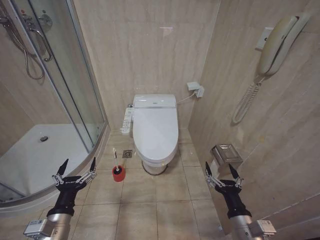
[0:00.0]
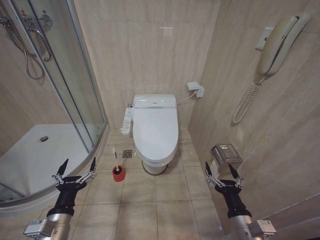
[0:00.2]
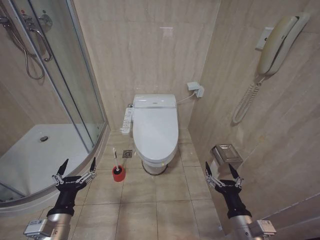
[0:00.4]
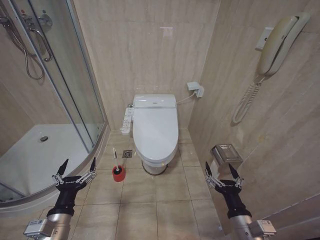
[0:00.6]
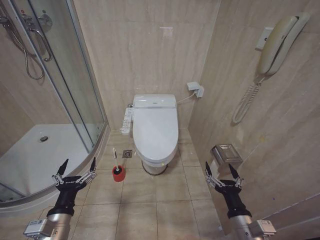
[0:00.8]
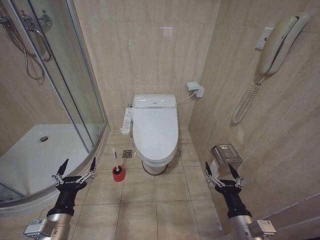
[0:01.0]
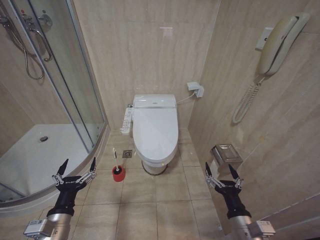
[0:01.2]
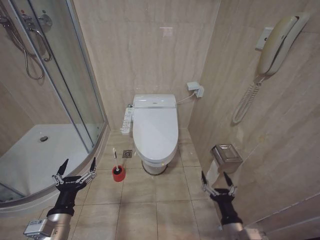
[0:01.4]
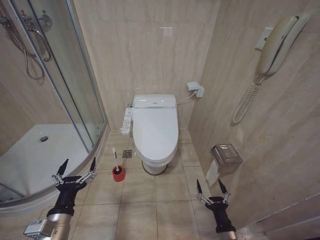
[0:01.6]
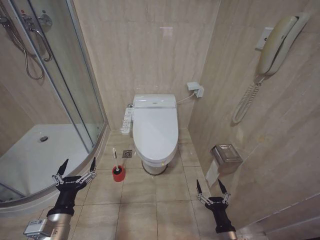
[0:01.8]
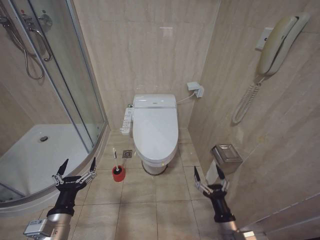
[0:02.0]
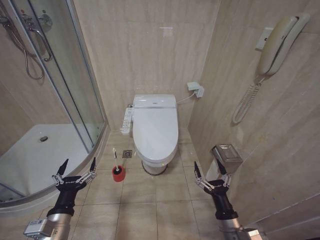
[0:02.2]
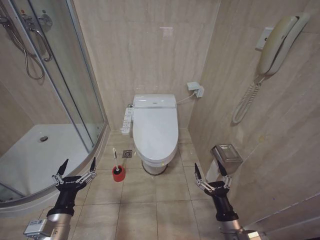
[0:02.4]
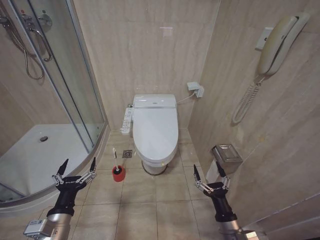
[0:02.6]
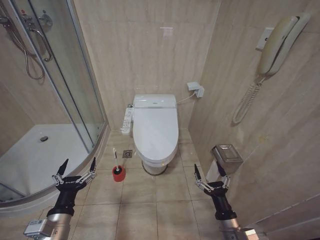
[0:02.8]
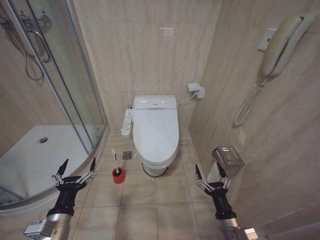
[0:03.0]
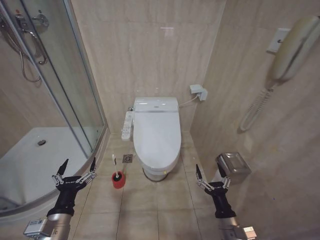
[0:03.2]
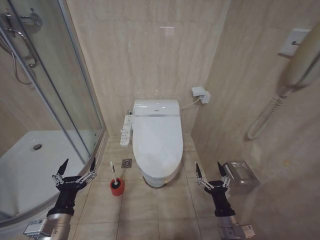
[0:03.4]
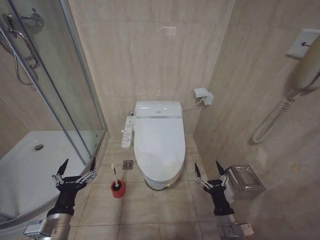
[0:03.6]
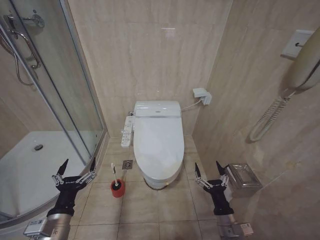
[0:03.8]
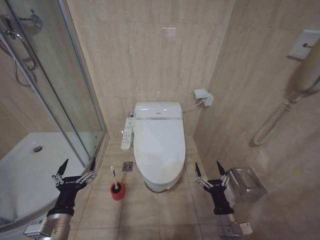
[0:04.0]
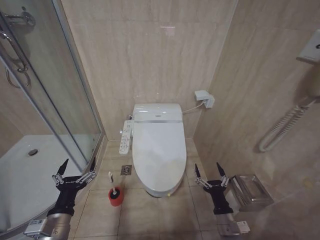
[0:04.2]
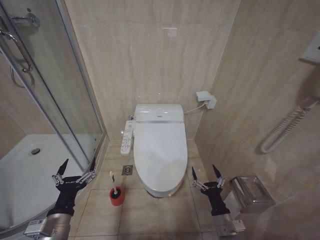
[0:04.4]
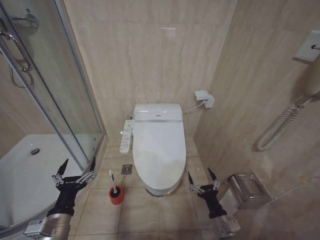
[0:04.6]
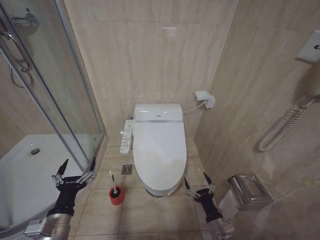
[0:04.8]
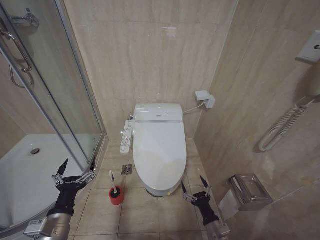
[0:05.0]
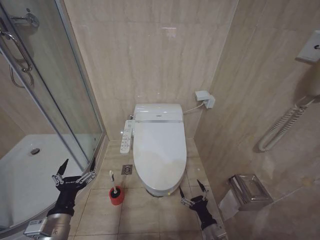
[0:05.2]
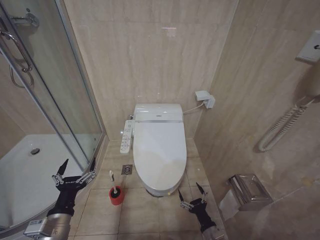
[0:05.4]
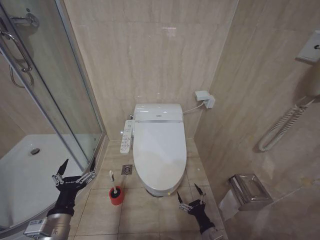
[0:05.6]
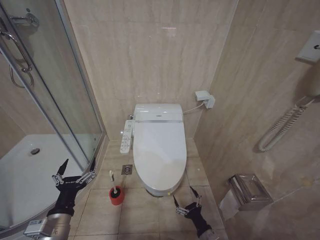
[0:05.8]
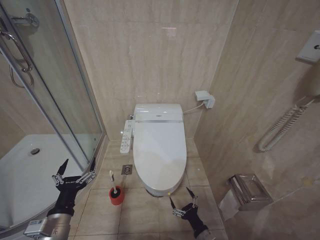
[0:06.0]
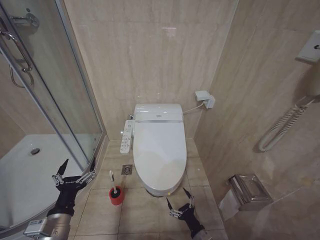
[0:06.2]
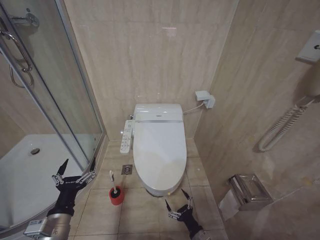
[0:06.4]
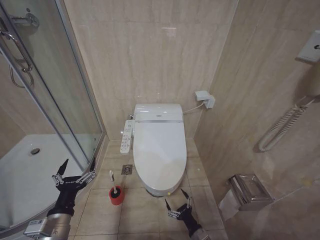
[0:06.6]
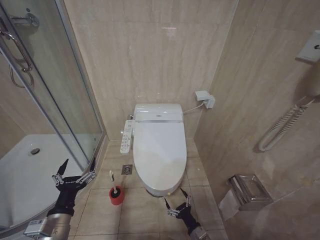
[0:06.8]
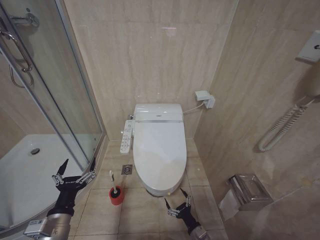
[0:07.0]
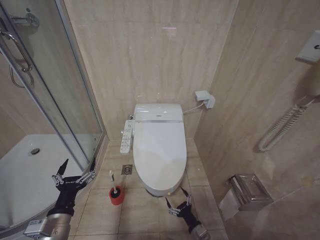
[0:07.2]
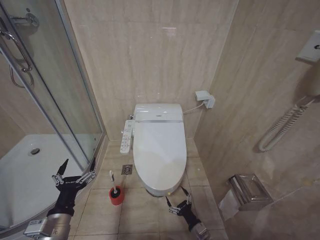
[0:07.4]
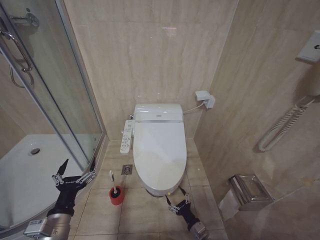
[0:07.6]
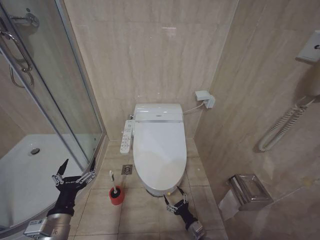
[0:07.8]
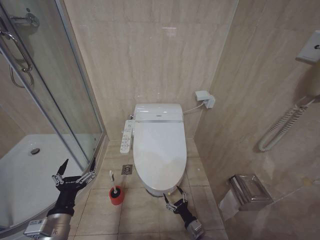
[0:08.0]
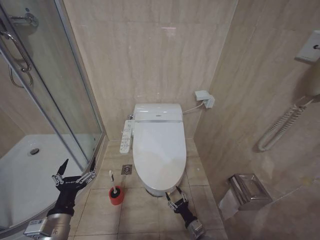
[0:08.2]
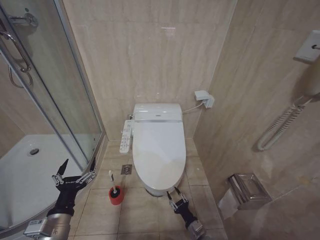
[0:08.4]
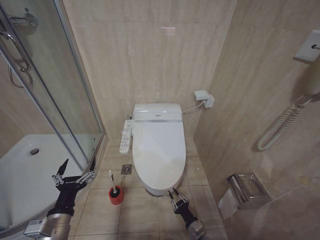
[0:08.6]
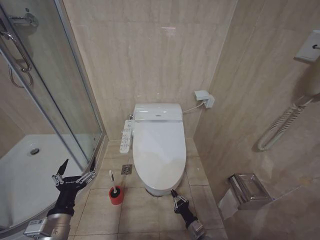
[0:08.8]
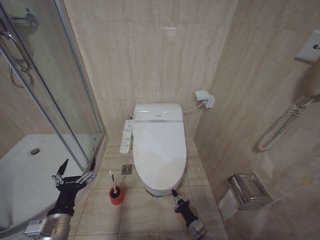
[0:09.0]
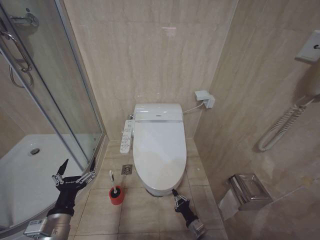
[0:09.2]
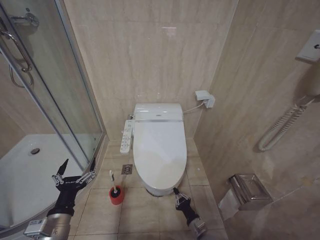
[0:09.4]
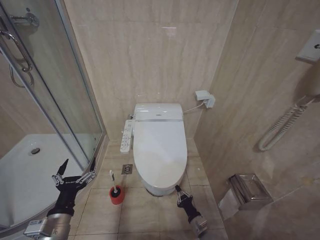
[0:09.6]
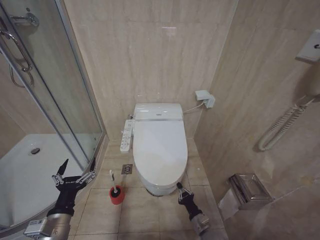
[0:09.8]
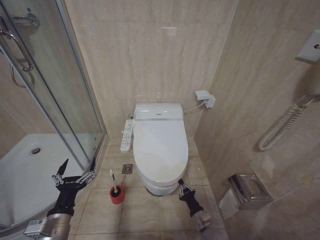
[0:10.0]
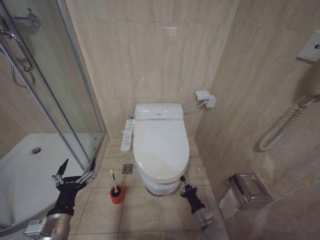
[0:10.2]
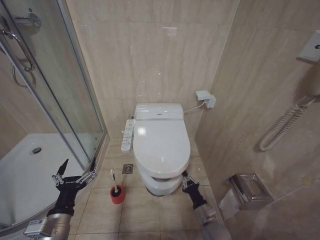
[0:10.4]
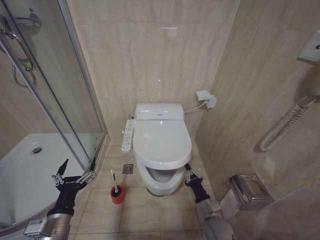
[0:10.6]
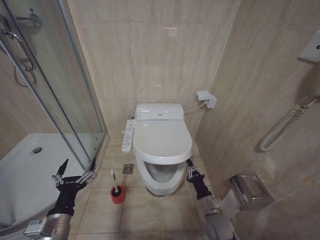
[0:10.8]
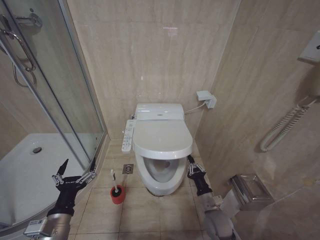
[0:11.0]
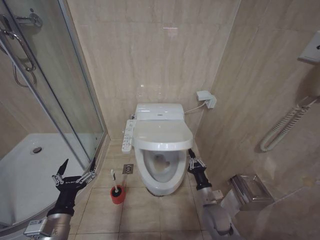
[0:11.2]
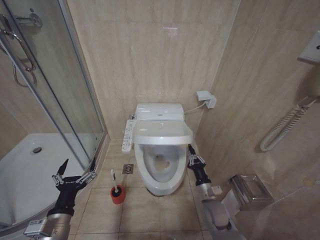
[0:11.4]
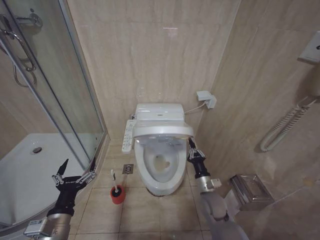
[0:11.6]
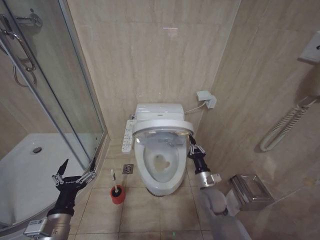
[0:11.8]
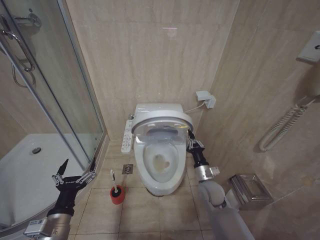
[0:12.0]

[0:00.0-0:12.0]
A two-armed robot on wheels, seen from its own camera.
Task of the whole recording: Open the toilet lid, clean the toilet bowl with a toilet brush, close the toilet lid, and flush.
0:03.0 to 0:04.4: The grippers move only a little.
0:04.4 to 0:06.0: The right gripper goes approximately 10 cm downward.
0:09.0 to 0:10.4: The right gripper is displaced upward by about 10 cm.
0:10.4 to 0:12.0: The right gripper heads upward and forward, covering some 15 cm.

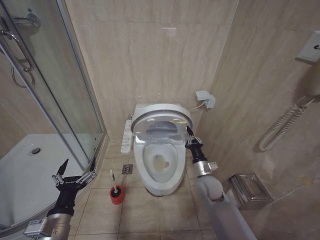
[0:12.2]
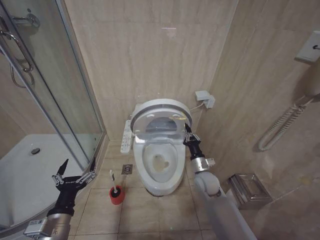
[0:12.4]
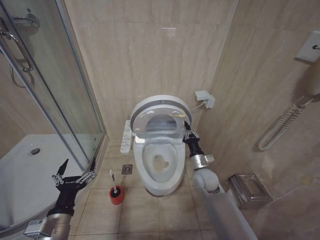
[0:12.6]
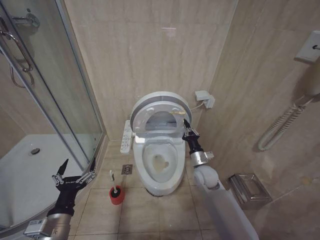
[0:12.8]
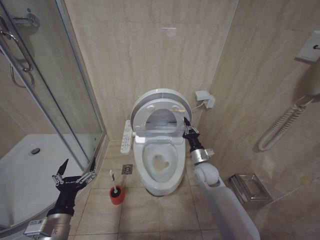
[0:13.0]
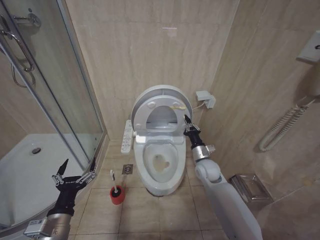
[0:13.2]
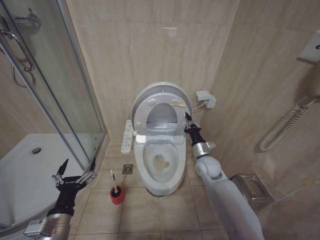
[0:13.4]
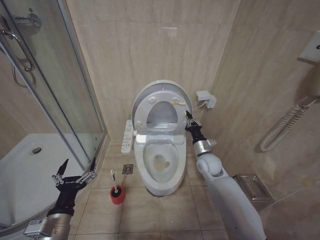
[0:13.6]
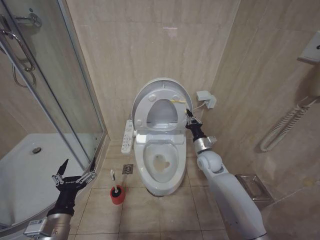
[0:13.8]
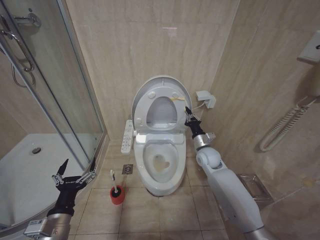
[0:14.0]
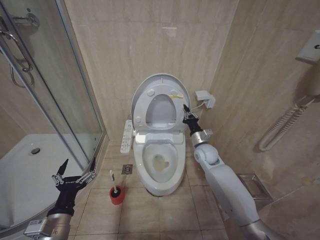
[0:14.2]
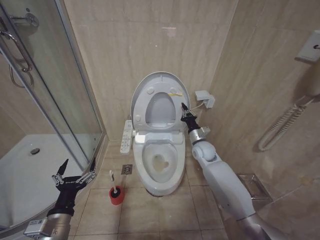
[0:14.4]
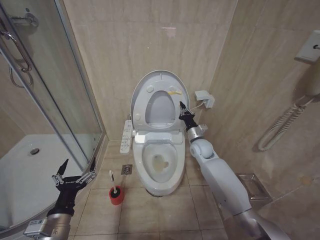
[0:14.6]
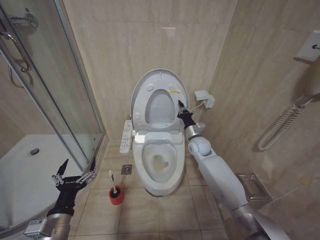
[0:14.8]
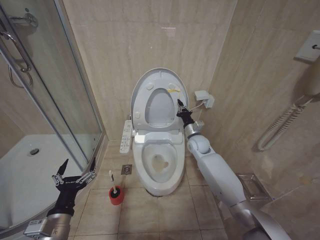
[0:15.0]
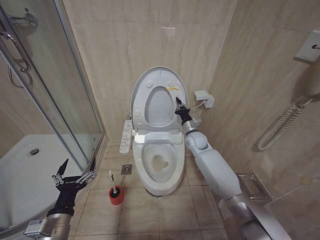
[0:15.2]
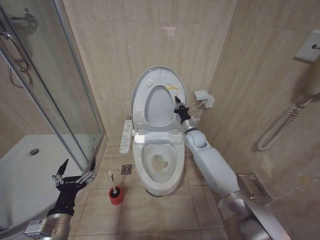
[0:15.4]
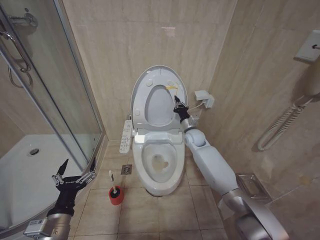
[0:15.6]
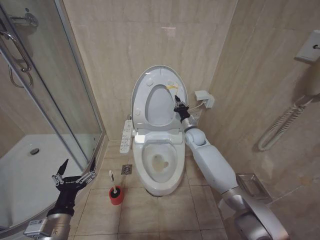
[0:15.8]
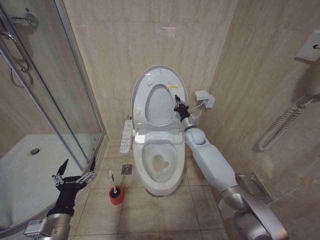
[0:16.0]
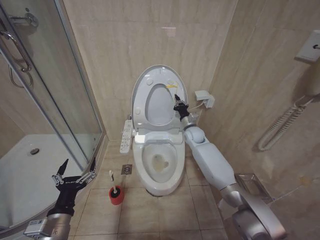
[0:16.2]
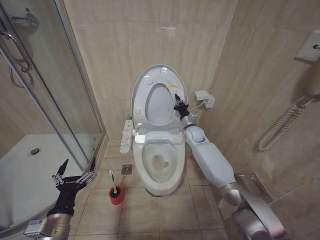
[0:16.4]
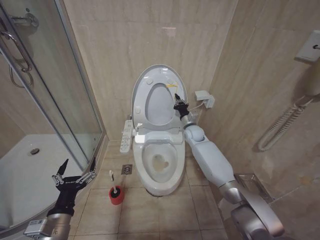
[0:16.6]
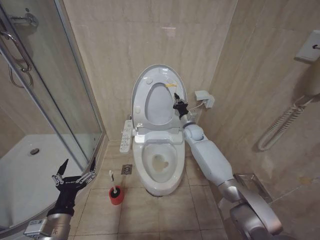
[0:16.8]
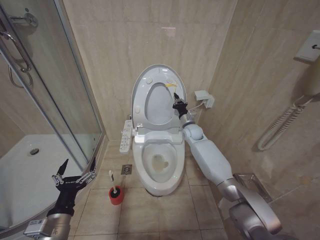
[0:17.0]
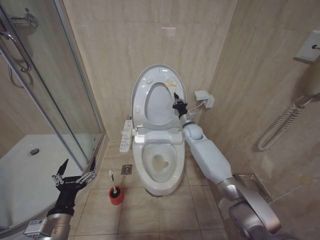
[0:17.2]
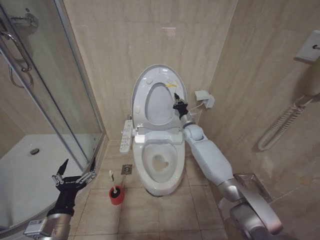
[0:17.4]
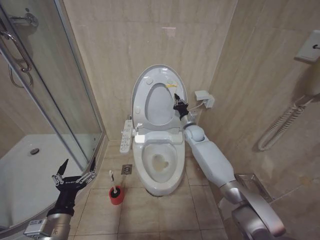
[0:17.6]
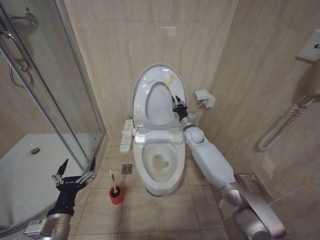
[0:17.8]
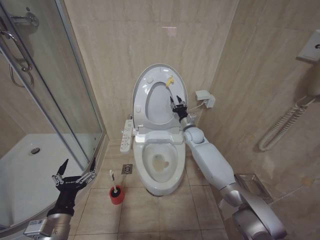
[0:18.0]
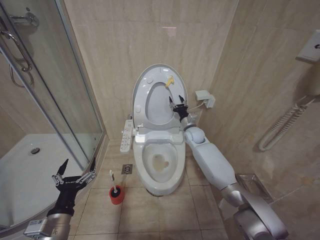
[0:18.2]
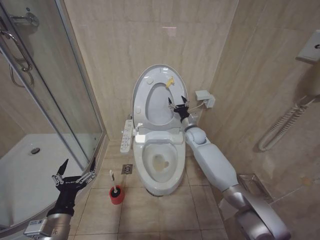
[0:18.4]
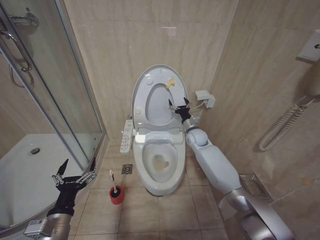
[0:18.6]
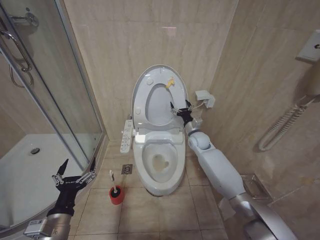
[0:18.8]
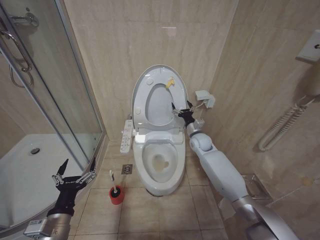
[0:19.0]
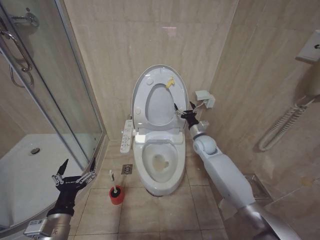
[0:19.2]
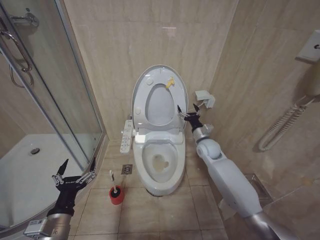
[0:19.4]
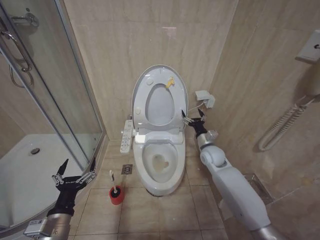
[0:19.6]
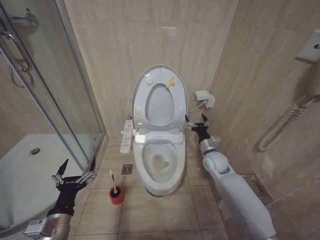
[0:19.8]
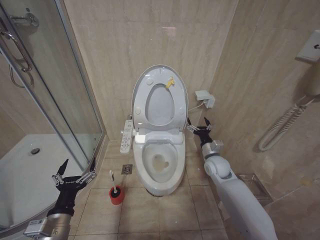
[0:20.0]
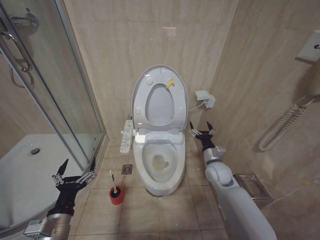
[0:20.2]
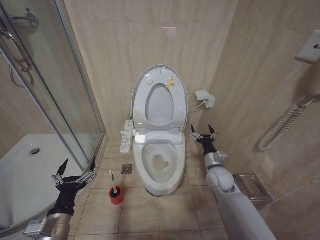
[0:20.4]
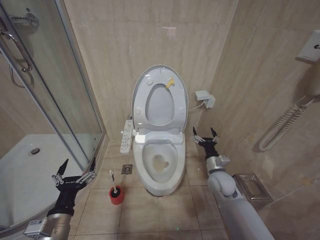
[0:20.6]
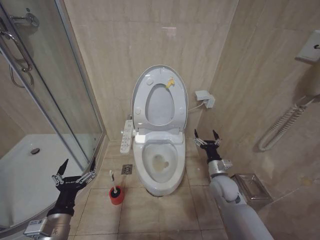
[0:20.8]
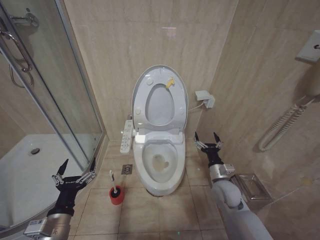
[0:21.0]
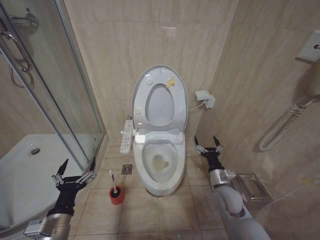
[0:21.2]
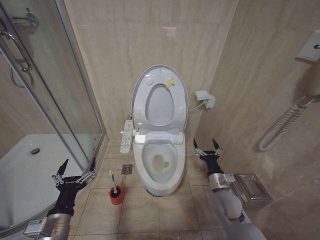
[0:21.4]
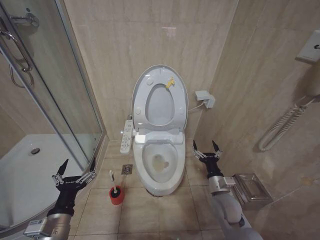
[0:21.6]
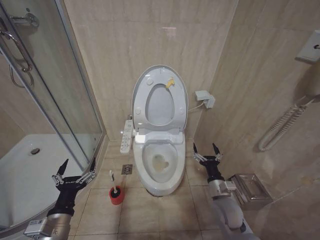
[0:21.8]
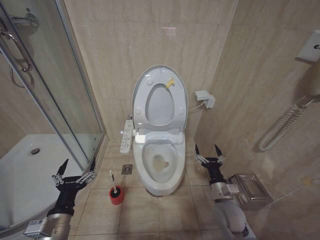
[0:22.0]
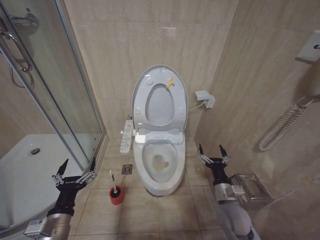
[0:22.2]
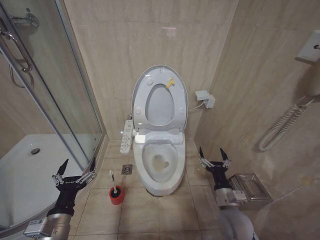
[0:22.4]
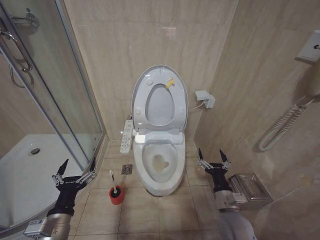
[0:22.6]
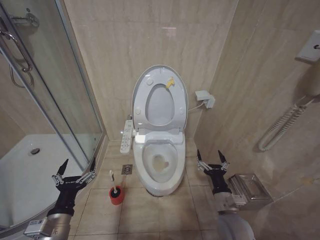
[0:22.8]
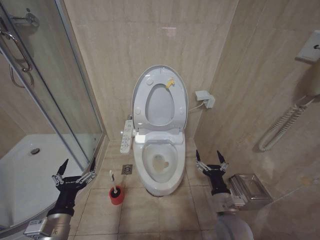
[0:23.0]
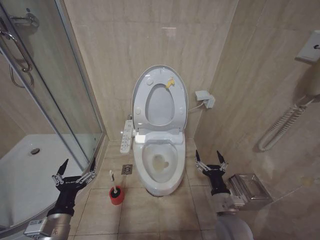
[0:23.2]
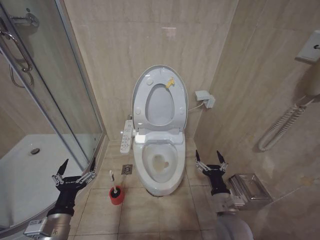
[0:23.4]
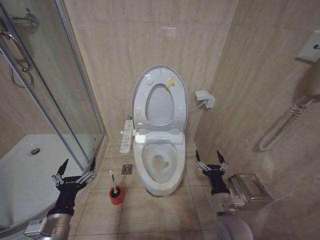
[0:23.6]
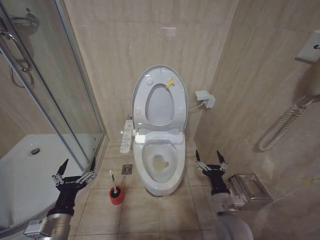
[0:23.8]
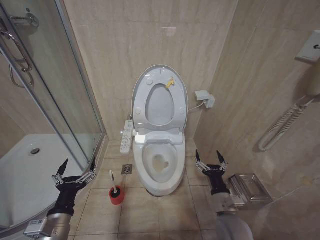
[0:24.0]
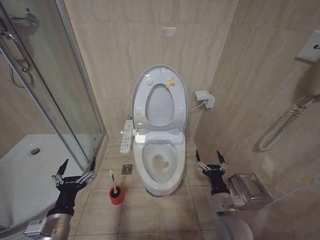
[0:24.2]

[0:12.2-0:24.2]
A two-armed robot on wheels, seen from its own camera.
Task of the whole recording: Open the toilet lid, clean the toilet bowl with a toilet brush, close the toilet lid, and flush.
0:12.2 to 0:13.8: The right gripper goes approximately 10 cm forward and upward.
0:13.8 to 0:15.2: The right gripper goes some 10 cm forward.
0:15.2 to 0:16.6: The grippers make only small movements.
0:16.6 to 0:18.2: The right gripper opens up.
0:18.2 to 0:19.8: The right gripper shifts some 15 cm backward and to the right, and opens its fingers.
0:19.8 to 0:21.2: The right gripper moves backward and downward, some 15 cm.
0:21.2 to 0:22.6: The right gripper travels backward by approximately 10 cm.
